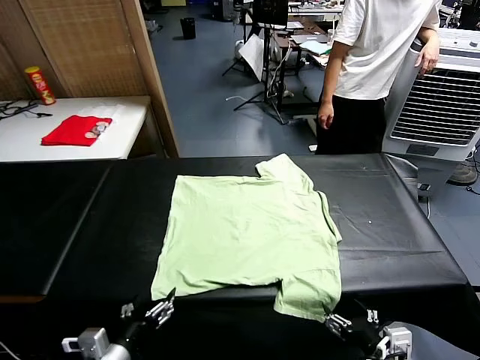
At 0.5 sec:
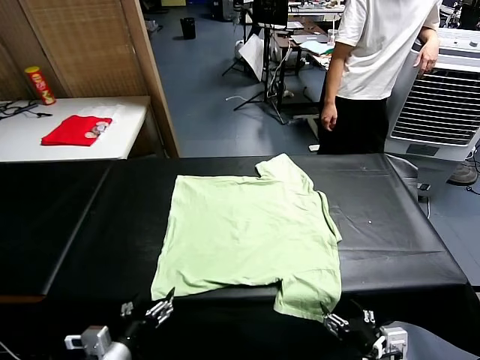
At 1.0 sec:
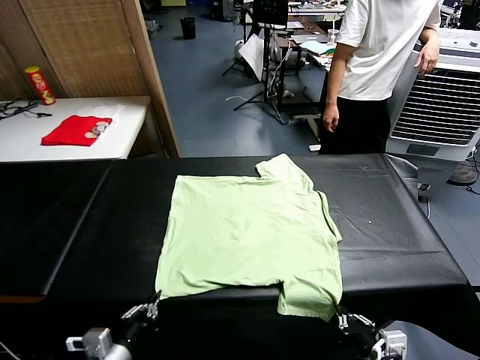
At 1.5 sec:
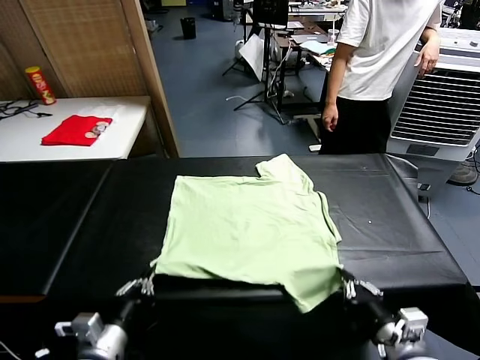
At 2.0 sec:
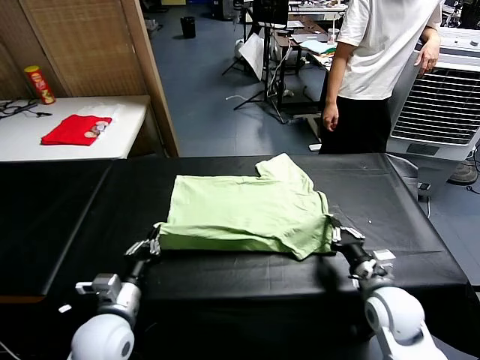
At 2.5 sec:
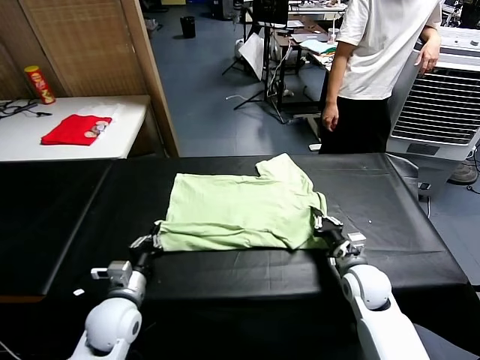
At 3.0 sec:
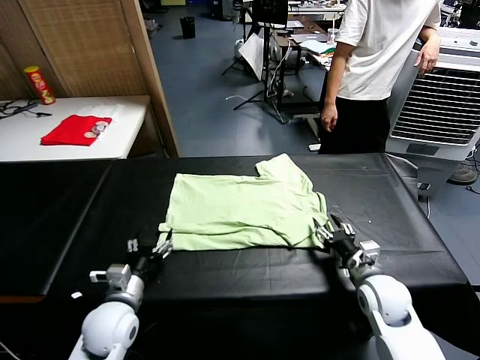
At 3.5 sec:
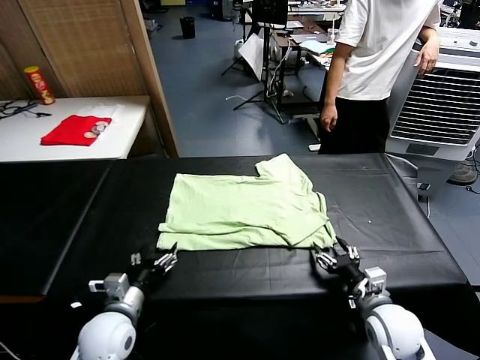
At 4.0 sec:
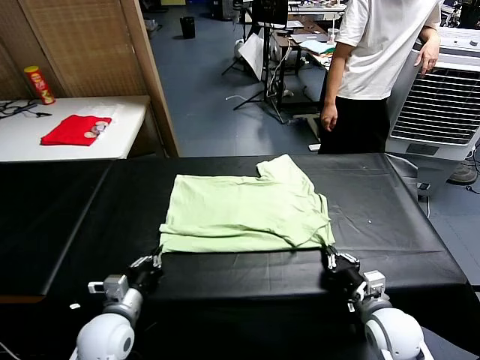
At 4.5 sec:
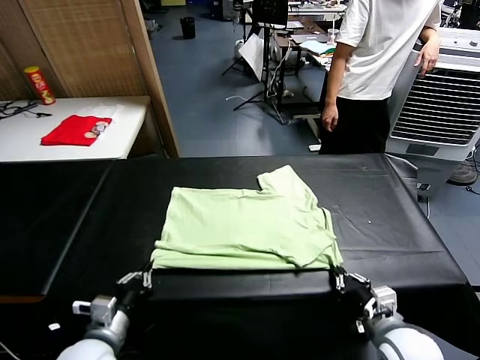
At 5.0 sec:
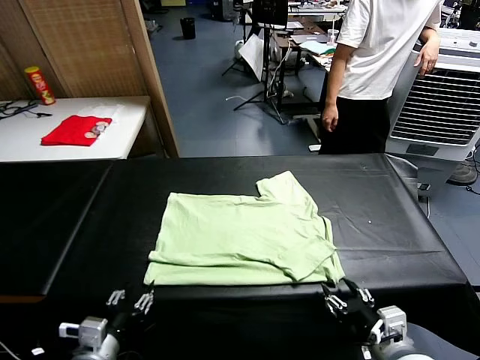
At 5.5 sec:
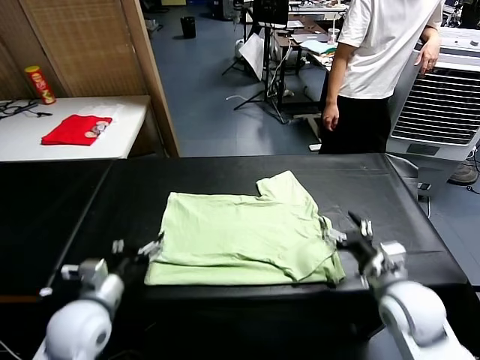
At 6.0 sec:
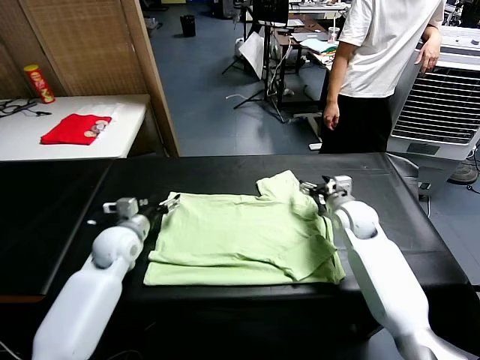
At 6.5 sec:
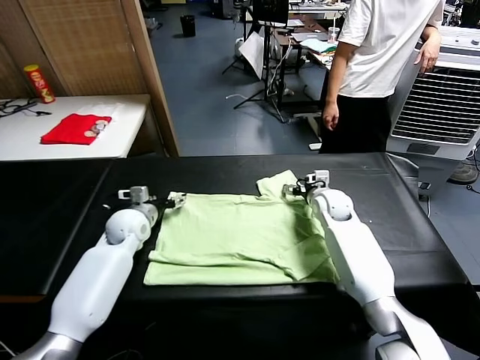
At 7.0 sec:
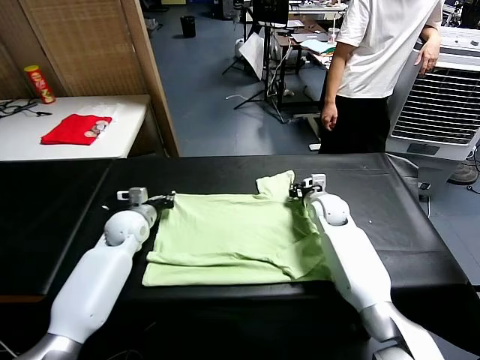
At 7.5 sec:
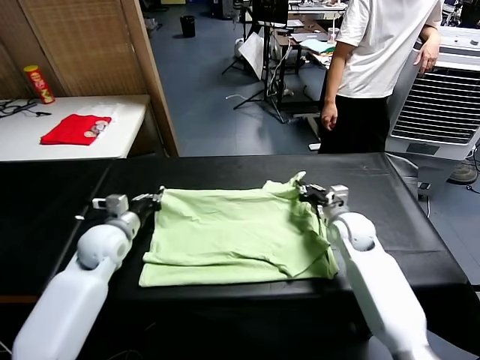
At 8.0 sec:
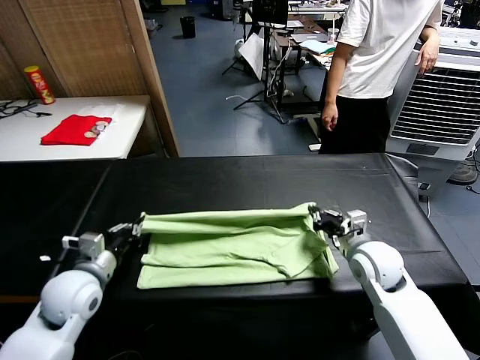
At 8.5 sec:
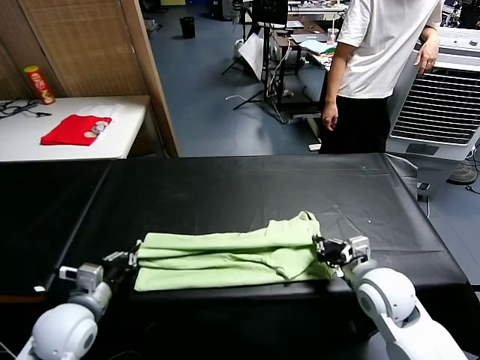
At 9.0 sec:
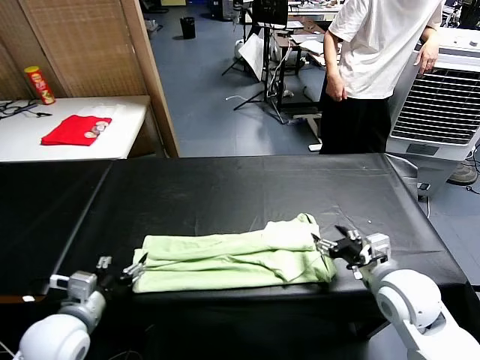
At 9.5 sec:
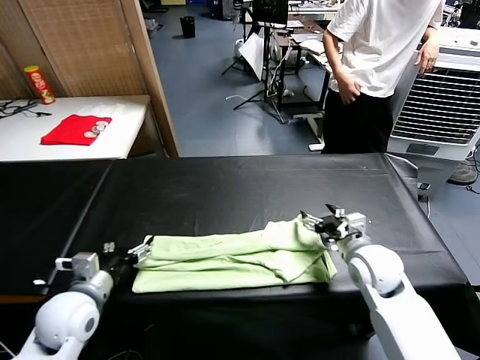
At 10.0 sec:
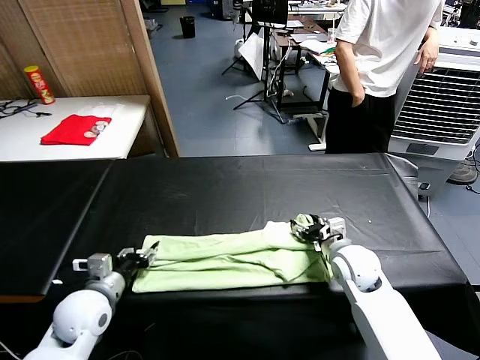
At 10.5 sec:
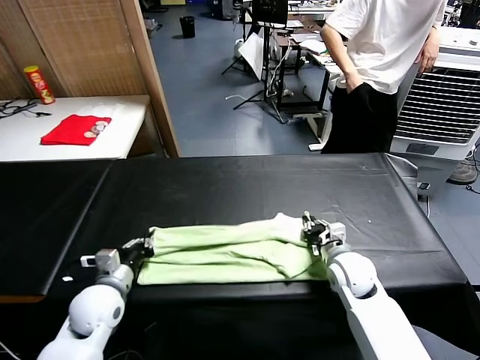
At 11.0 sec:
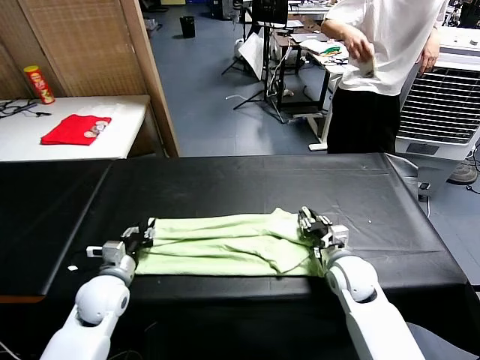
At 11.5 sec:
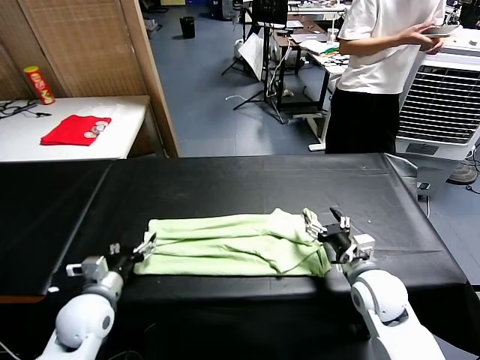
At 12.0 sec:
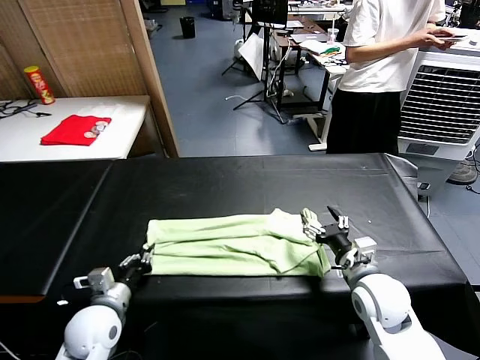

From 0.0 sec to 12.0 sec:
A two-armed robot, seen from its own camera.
Task of the whole recording: fold and organize the clothes.
Step, from 0.0 sec to 1.0 sec: use both grippers simultaneously to clamp the lower edge of the clothing fabric.
Step, from 1.5 sec to 2.5 sec: use both grippers to drag the lower edge of the fabric forward and fold it over the upper edge.
Step, from 3.0 sec to 5.0 sec: Drag the clothes downward with both gripper.
Step, from 5.5 sec to 7.0 sec: use both grippers simultaneously to clamp the upper edge of the clothing fabric.
Step, from 7.5 sec to 8.5 sec: use both grippers to drag the upper edge of the fabric backward and fold it over the lower edge.
From 2.0 sec to 4.0 sec: The right gripper heads backward, covering roughly 10 cm, and opens, then closes again. Meanwhile the left gripper opens and closes again.
From 4.0 sec to 6.0 sec: The left gripper travels forward by roughly 20 cm, and opens up, while the right gripper travels forward by some 30 cm, and opens its fingers.
From 6.0 sec to 8.0 sec: The two grippers go about 15 cm backward. The left gripper closes up, while the right gripper closes up.
From 8.0 sec to 10.0 sec: The right gripper ends up some 5 cm from where it was, and opens its fingers. Meanwhile the left gripper opens.
From 10.0 sec to 12.0 sec: The left gripper opens, then closes once more. The right gripper is displaced backward by approximately 10 cm, and opens up.

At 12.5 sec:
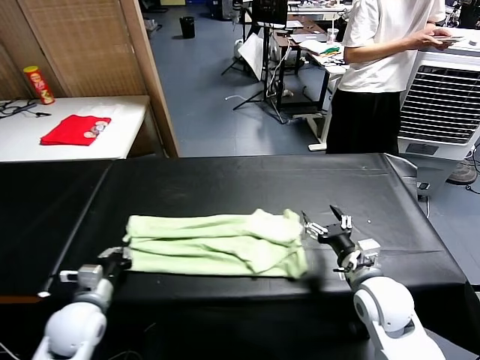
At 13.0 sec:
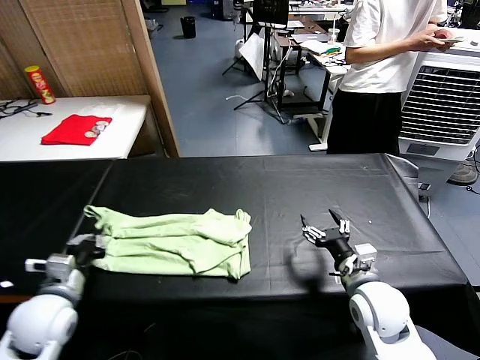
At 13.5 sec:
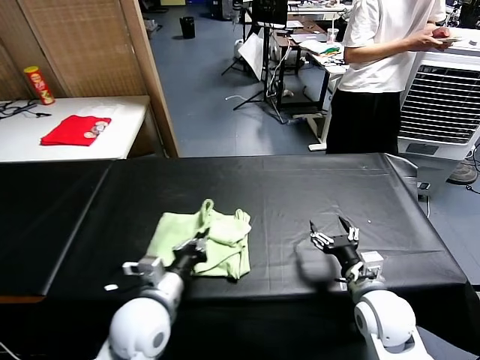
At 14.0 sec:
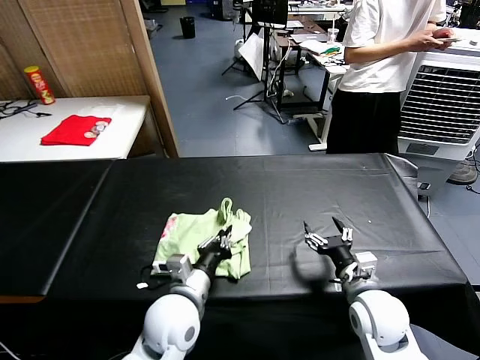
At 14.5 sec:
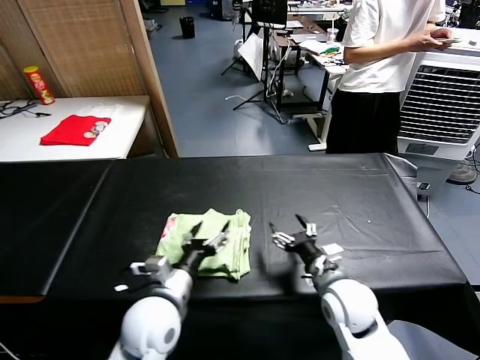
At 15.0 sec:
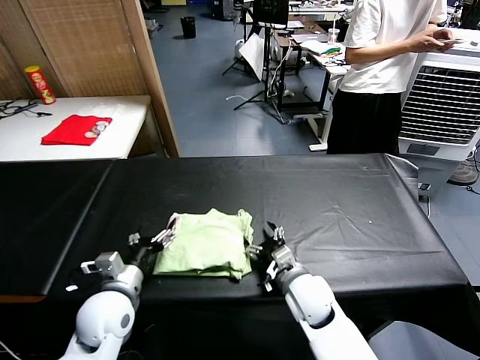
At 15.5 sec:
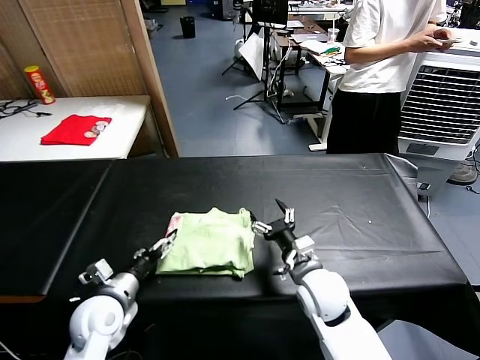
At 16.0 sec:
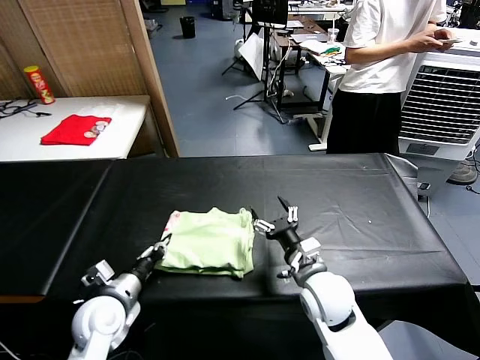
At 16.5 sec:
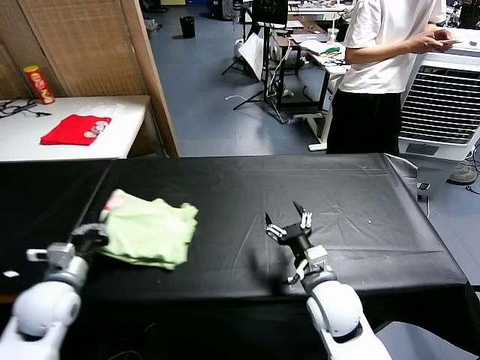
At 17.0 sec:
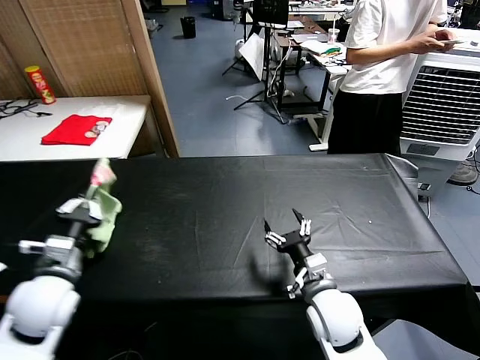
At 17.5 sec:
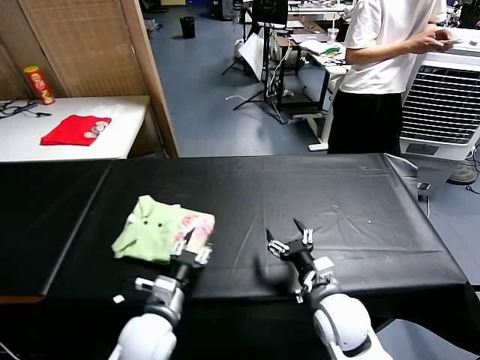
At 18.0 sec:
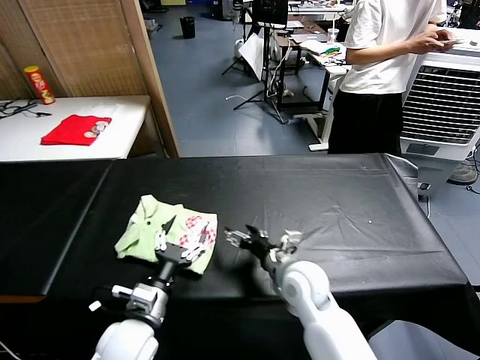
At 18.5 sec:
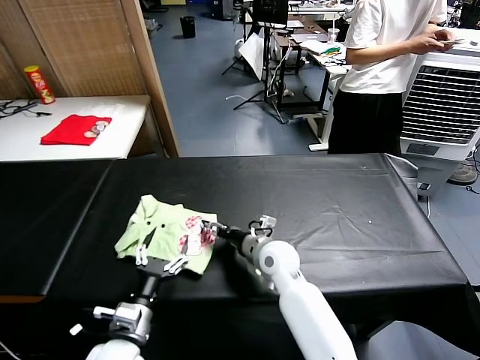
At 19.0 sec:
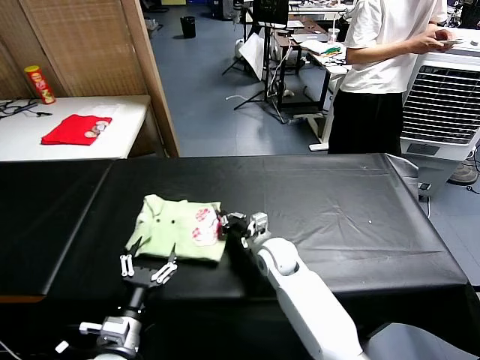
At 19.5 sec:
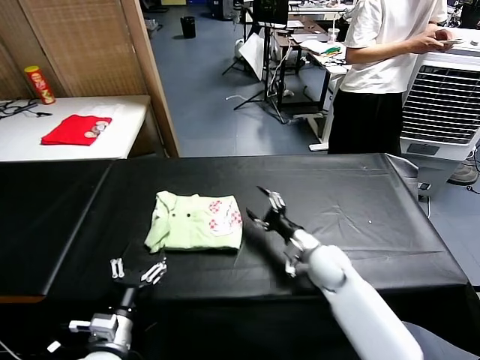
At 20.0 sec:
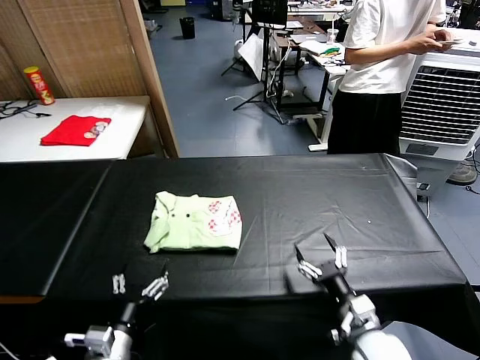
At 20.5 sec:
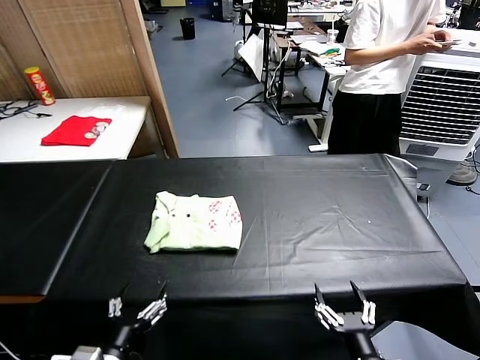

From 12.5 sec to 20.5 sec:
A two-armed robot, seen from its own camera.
Task of the whole recording: fold and organize the clothes.
Step, from 12.5 sec to 14.0 sec: use the left gripper to drag the left edge of the fabric to the left and folds it over the right edge.
Step, from 14.5 sec to 17.5 sec: Flip the folded clothes over with left gripper.
Step, from 18.0 sec to 19.0 sec: Drag the clothes to the center of the table.
From 12.5 sec to 14.5 sec: The left gripper moves to the right, some 20 cm, and opens its fingers; the right gripper travels to the left by approximately 5 cm.
From 14.5 sec to 16.5 sec: The left gripper heads to the left, covering about 20 cm, and closes.
From 16.5 sec to 18.5 sec: The left gripper travels to the right and backward by approximately 15 cm, and opens its fingers. The right gripper heads forward and to the left, covering about 15 cm.
From 18.5 sec to 20.5 sec: The left gripper travels backward by roughly 10 cm, while the right gripper is displaced backward and to the right by approximately 35 cm, and closes and opens again.
